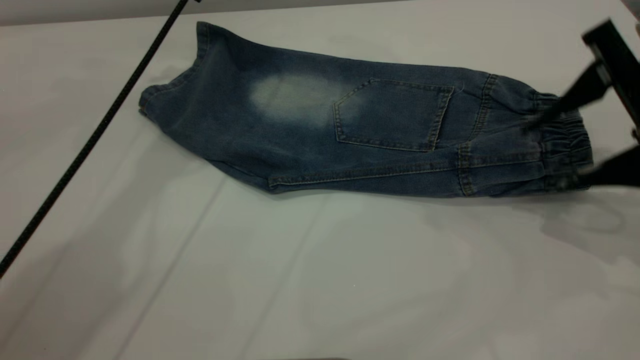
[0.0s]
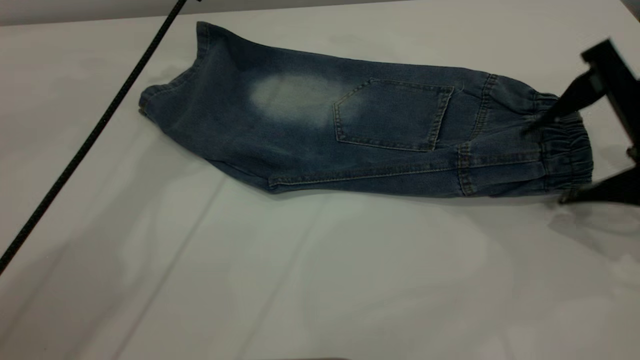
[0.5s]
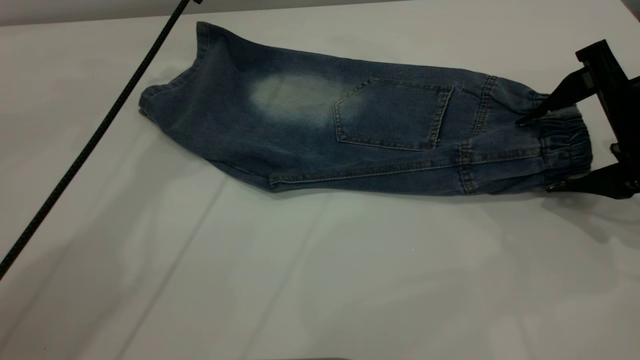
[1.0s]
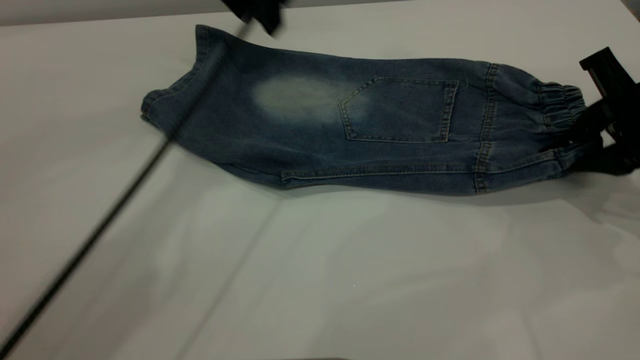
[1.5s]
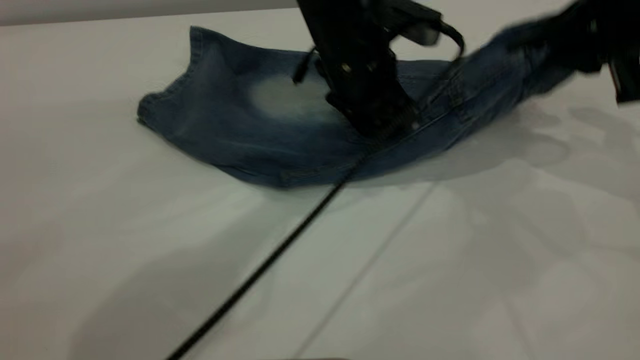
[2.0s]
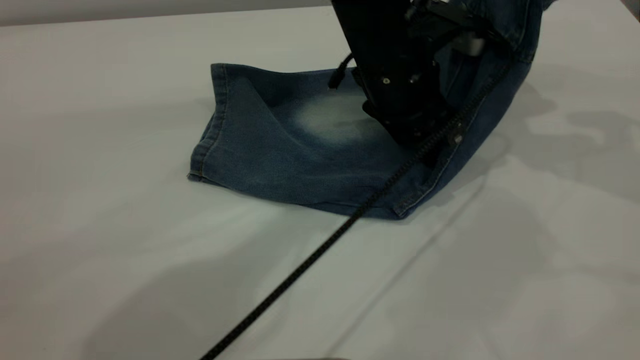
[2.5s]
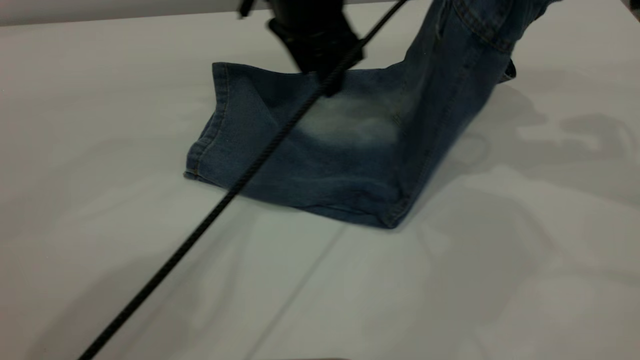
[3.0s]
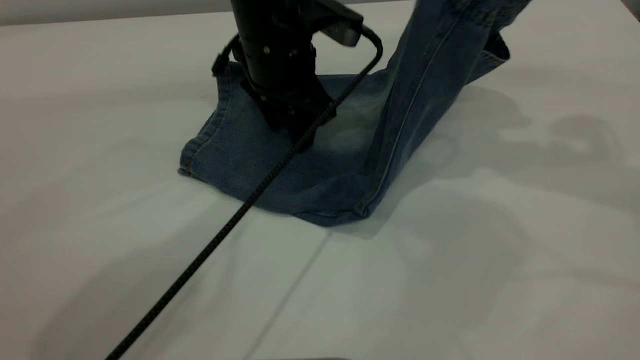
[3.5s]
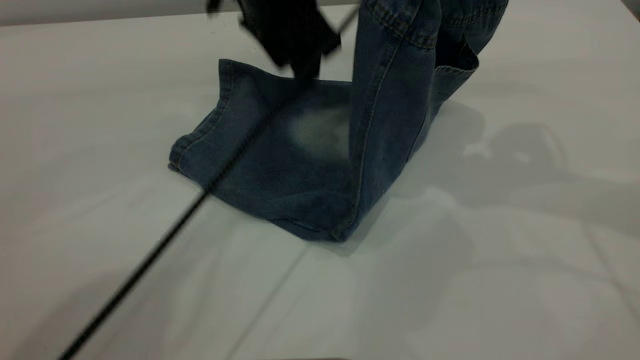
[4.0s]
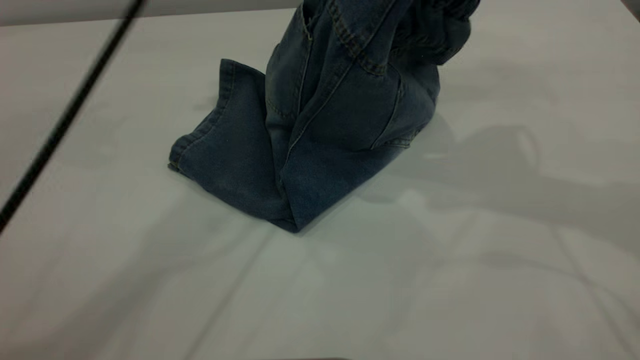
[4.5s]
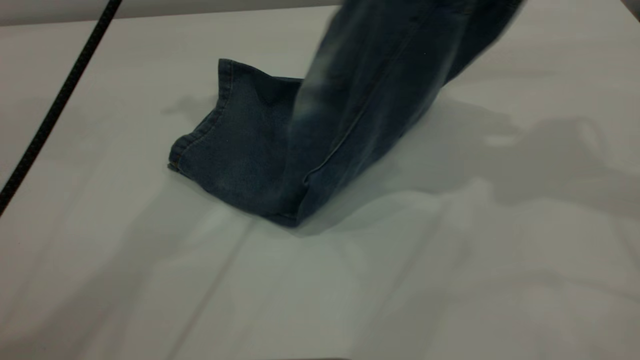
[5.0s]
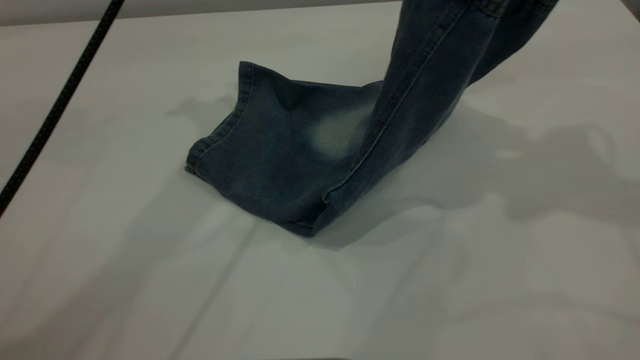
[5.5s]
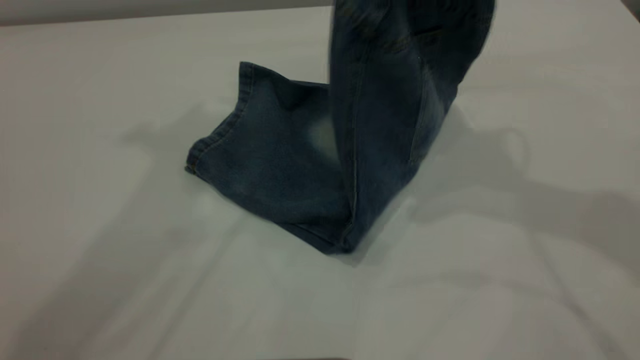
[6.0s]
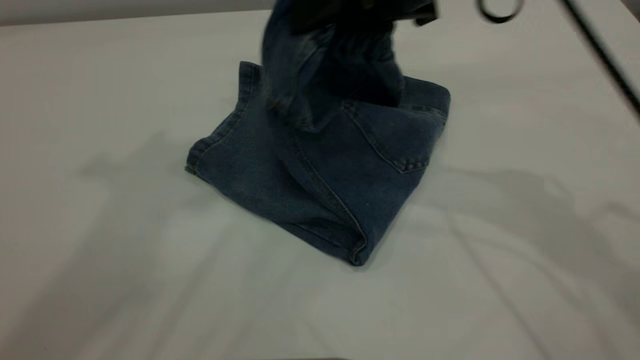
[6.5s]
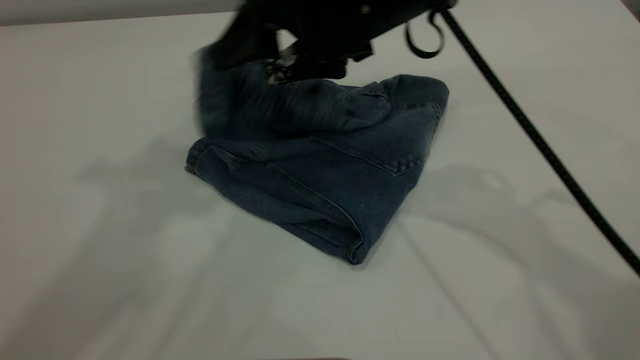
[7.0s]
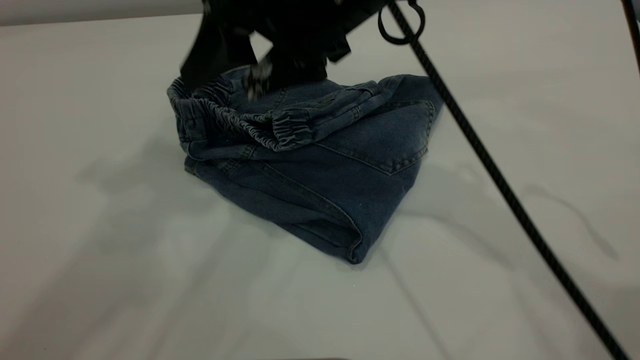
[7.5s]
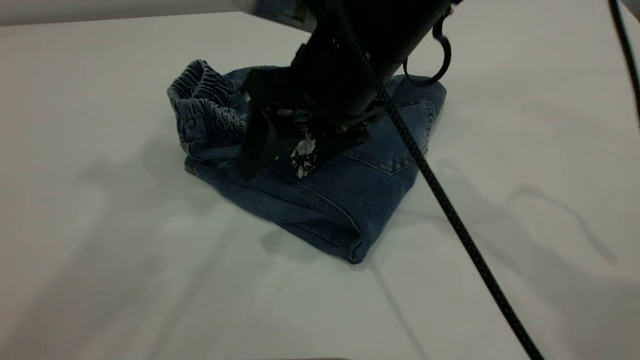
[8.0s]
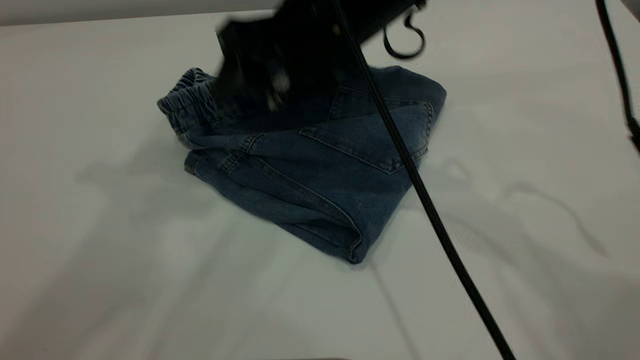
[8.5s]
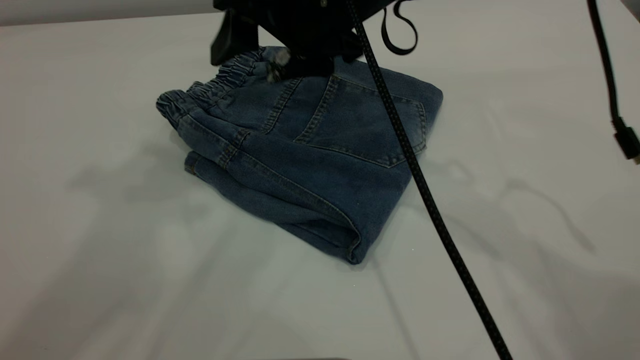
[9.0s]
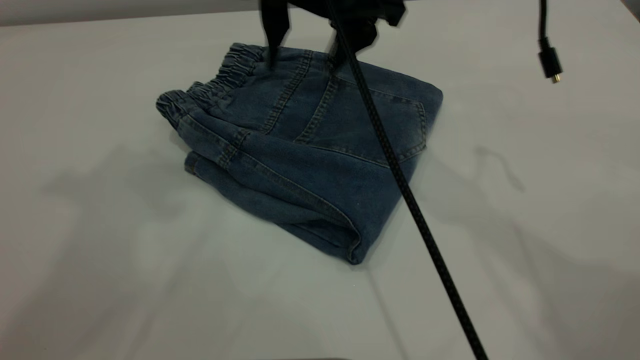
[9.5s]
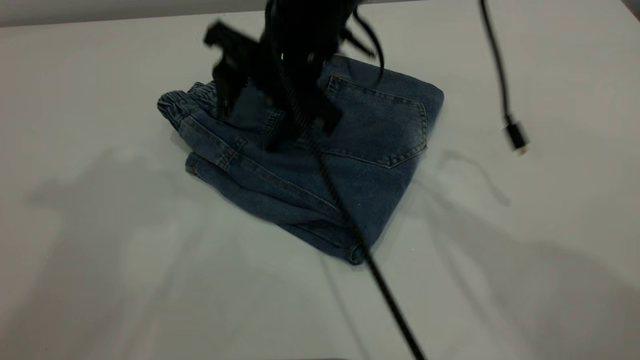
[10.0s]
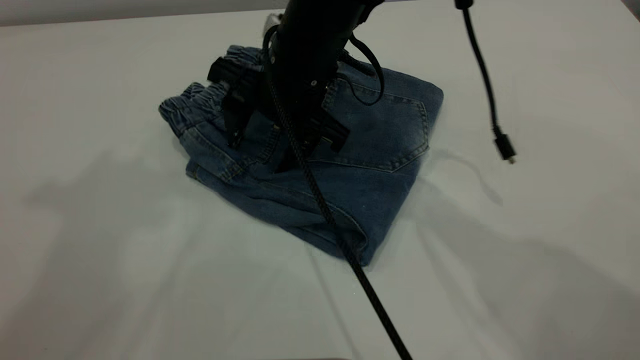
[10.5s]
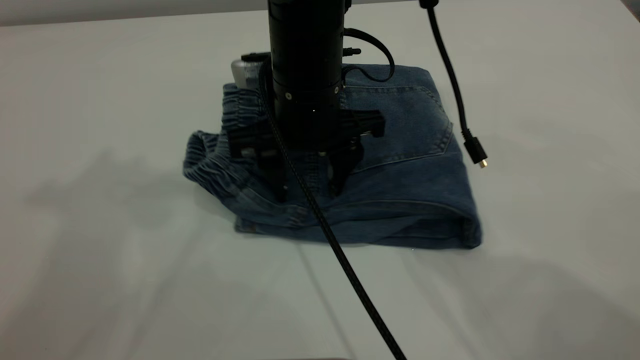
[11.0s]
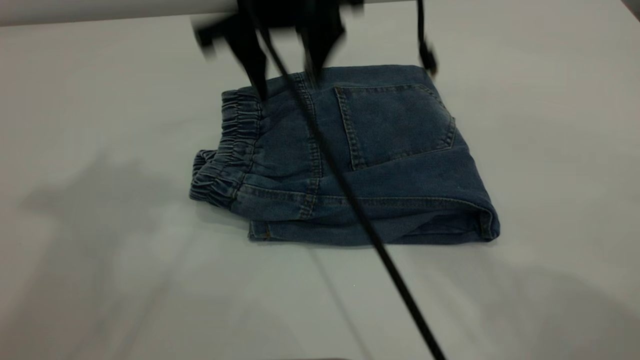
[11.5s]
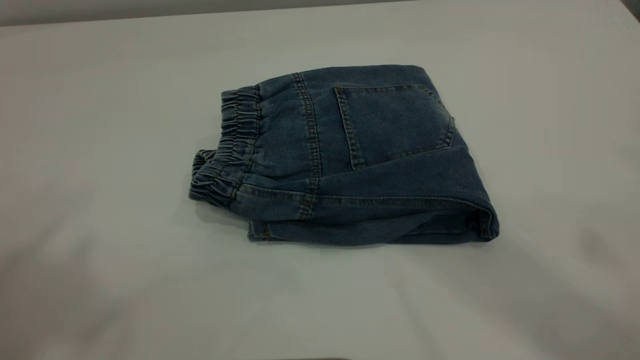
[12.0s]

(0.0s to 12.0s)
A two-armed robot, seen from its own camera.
Step, 0.0s - 7.0s: Fold your pants from right to left.
0.0s - 2.0s: The left gripper moves to the right, downward and backward, some 25 cm; the right gripper heads forward, covering approximately 5 cm, and closes up.
2.0s - 4.0s: The left gripper swings up and down, some 10 cm each way, with 2 reversals. Meanwhile the right gripper travels upward and to the left by about 10 cm.
4.0s - 6.0s: The left gripper travels upward and to the left by some 30 cm; the right gripper changes place by about 5 cm.
6.0s - 8.0s: The right gripper is displaced to the left and downward by approximately 15 cm, and opens.
8.0s - 10.0s: The right gripper heads forward and to the left, covering approximately 10 cm.
10.0s - 12.0s: The right gripper is displaced upward by about 40 cm. The left gripper goes some 10 cm backward.
